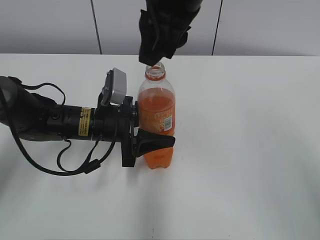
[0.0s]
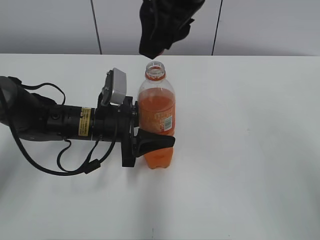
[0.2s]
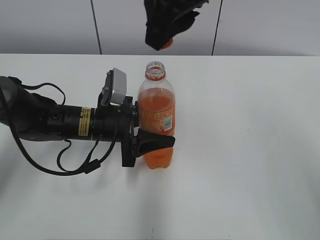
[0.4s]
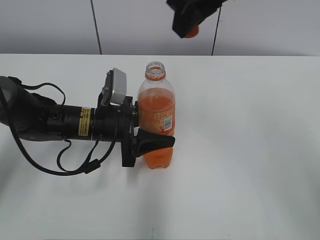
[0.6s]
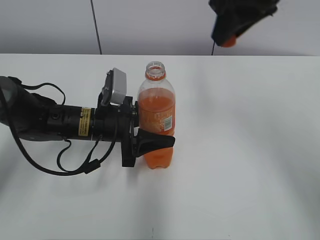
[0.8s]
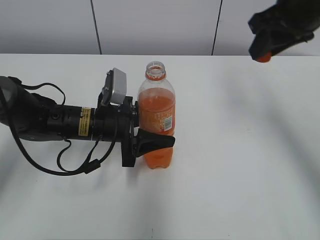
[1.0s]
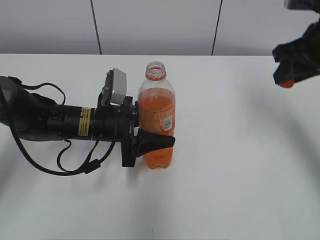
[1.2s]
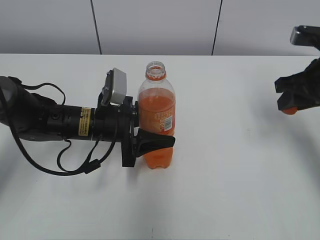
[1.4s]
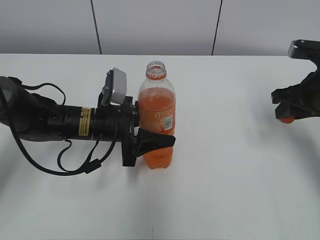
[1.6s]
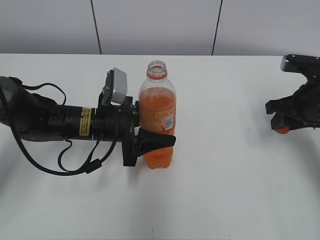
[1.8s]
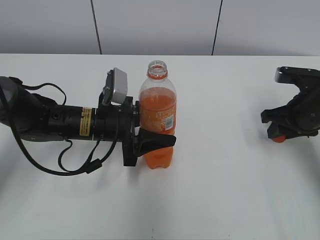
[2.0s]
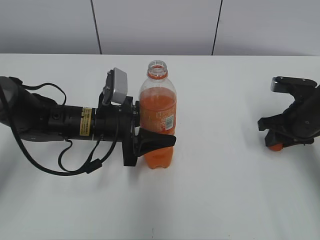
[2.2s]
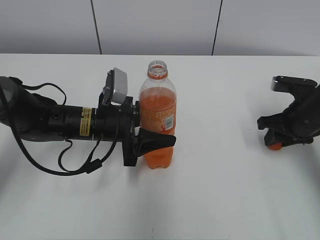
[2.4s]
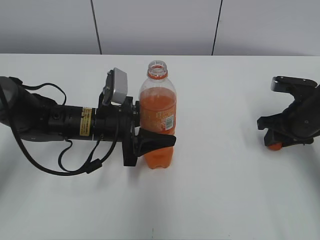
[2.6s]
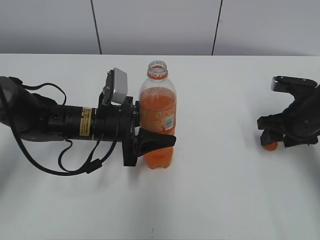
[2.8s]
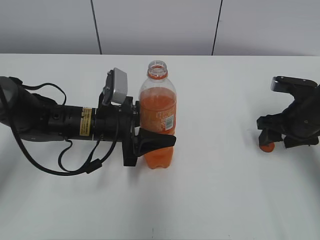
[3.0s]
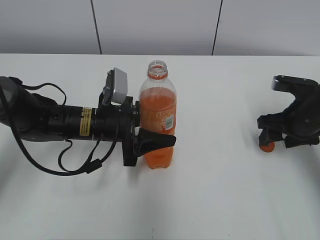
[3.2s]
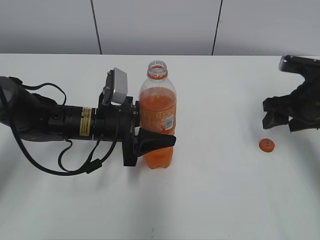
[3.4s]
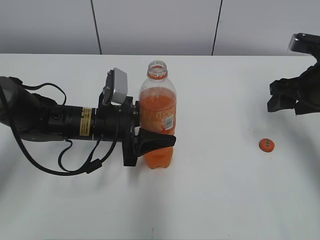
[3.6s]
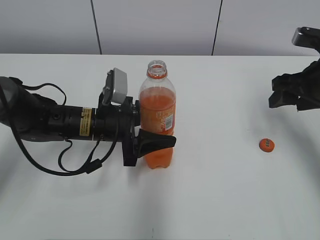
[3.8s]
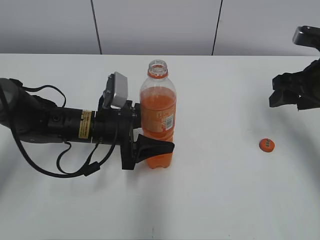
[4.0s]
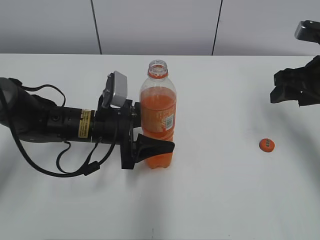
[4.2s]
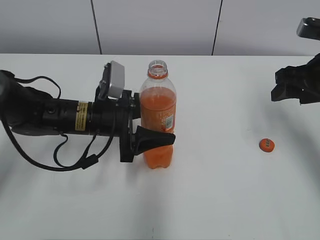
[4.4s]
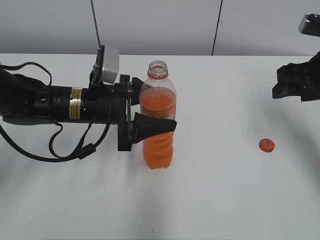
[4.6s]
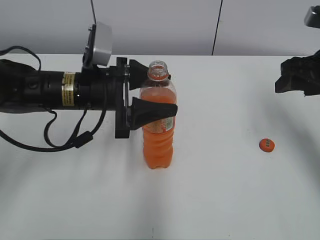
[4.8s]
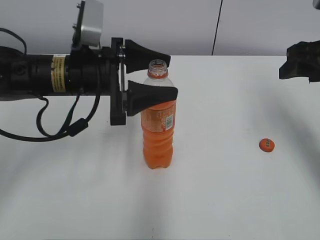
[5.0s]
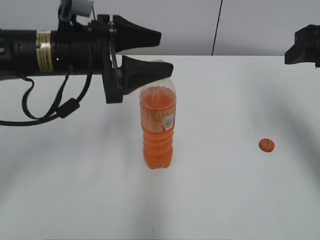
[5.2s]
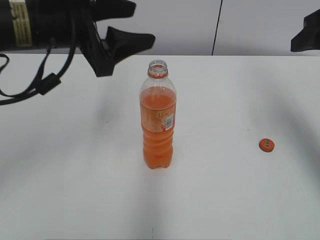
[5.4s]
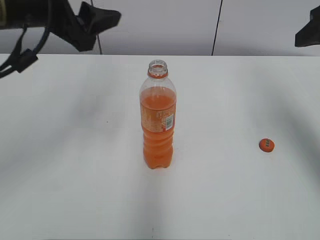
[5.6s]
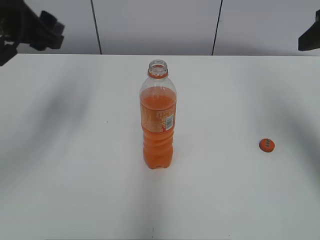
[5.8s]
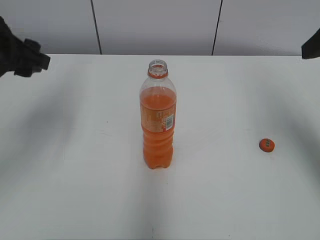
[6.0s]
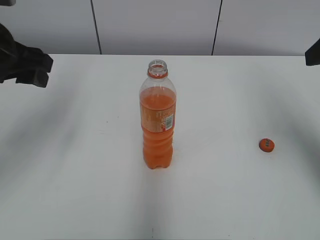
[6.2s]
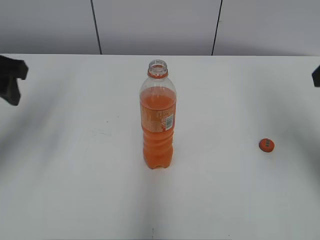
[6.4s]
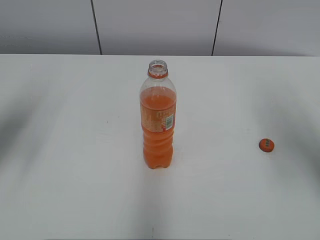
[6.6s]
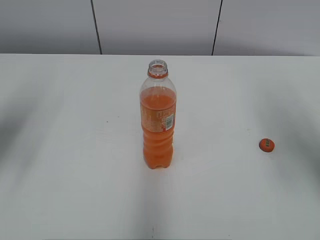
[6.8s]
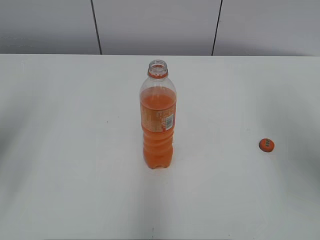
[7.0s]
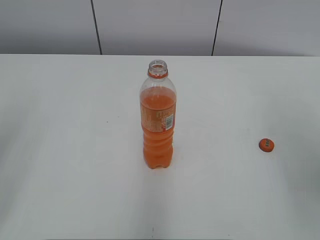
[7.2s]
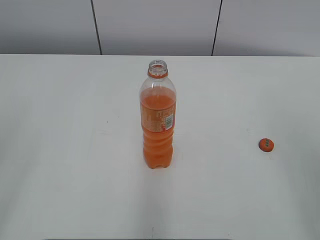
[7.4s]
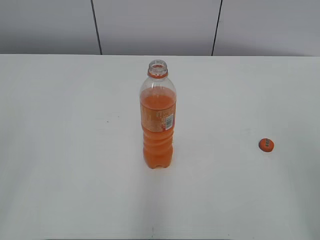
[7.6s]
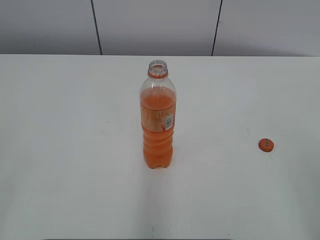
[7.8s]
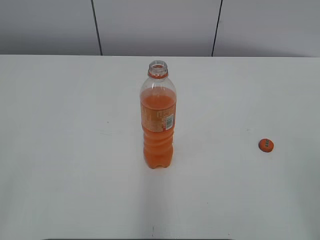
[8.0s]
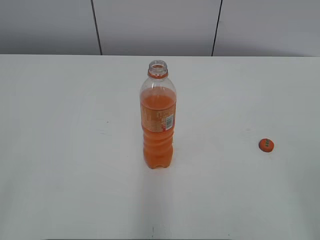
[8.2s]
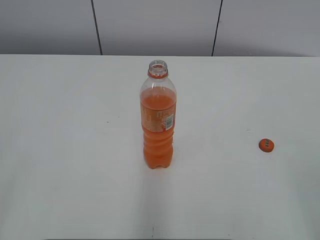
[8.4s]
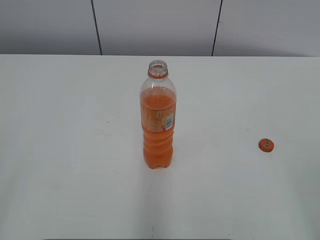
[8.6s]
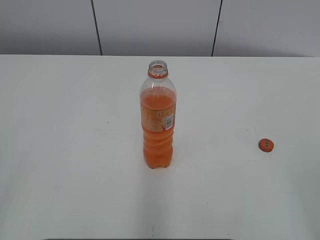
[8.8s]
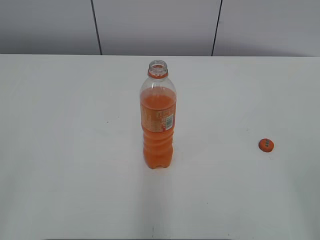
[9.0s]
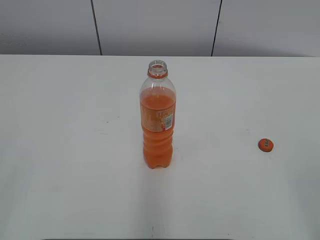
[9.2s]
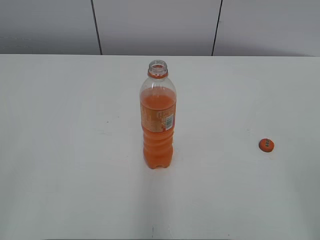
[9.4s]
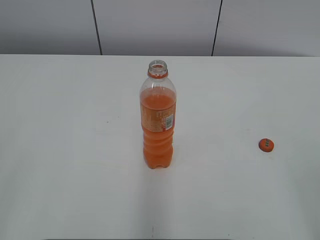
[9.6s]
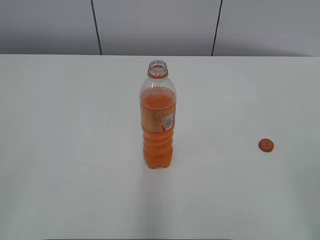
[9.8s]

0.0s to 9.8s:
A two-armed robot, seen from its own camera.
Step, 0.2s to 3.2s: Place the bottle cap on the right.
0.0s to 1.4s: The right gripper is displaced to the right and downward by approximately 30 cm.
1.4s to 2.8s: The right gripper is displaced downward by roughly 10 cm, and opens its fingers.
2.8s to 4.2s: The left gripper opens. Meanwhile the right gripper heads upward, covering roughly 10 cm.
4.2s to 5.6s: The left gripper goes some 20 cm upward; the right gripper goes some 10 cm upward.
5.6s to 7.0s: The left gripper travels to the left and backward by roughly 15 cm, while the right gripper travels backward by approximately 10 cm.
7.0s to 8.4s: The grippers both shift backward by roughly 20 cm.
8.4s to 9.8s: The two grippers keep their place.

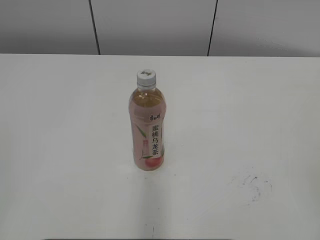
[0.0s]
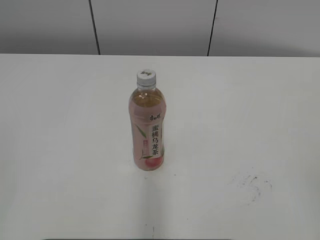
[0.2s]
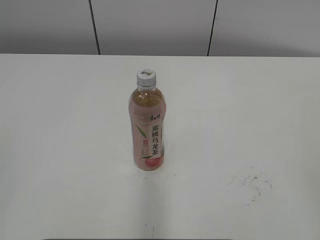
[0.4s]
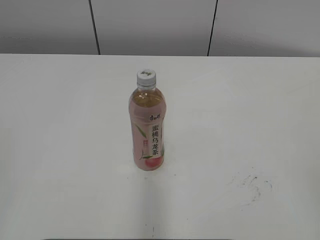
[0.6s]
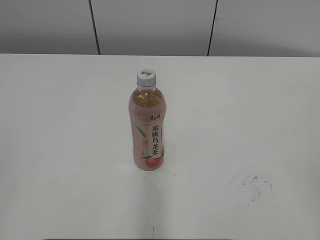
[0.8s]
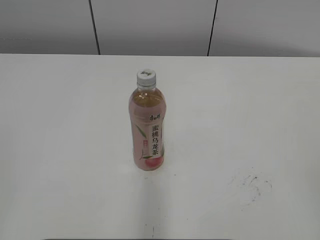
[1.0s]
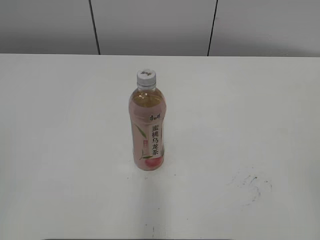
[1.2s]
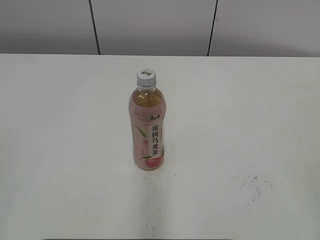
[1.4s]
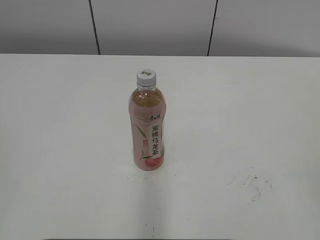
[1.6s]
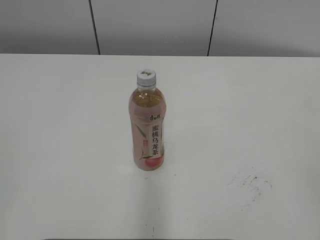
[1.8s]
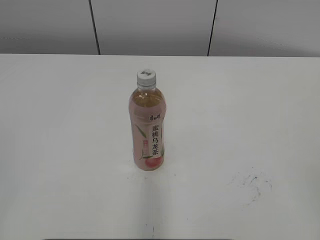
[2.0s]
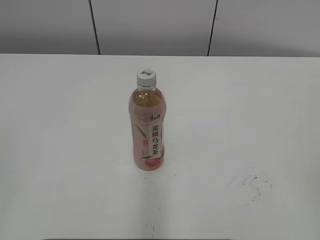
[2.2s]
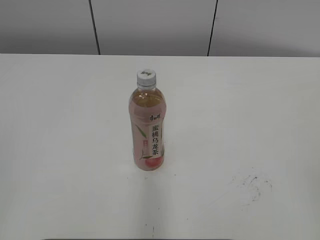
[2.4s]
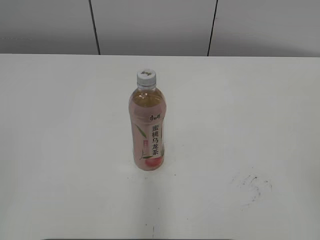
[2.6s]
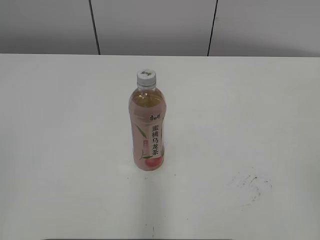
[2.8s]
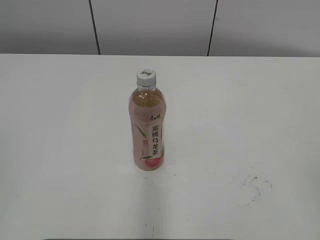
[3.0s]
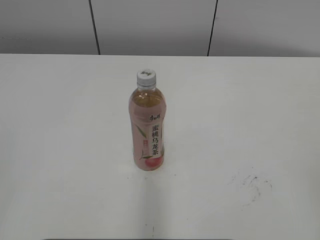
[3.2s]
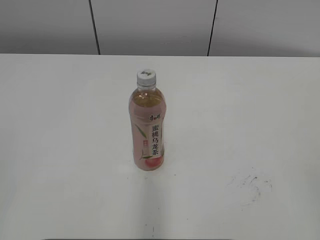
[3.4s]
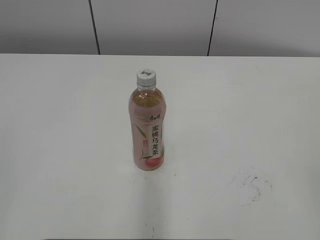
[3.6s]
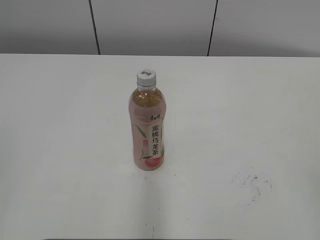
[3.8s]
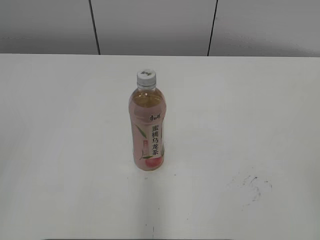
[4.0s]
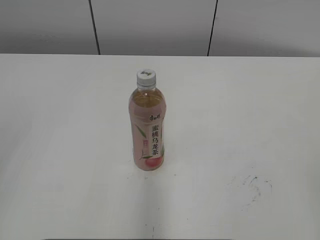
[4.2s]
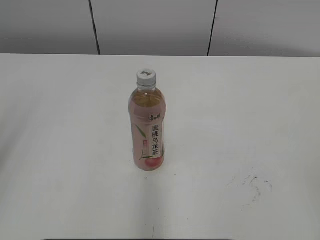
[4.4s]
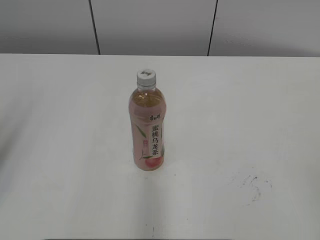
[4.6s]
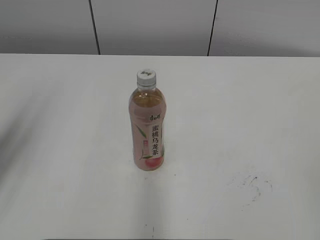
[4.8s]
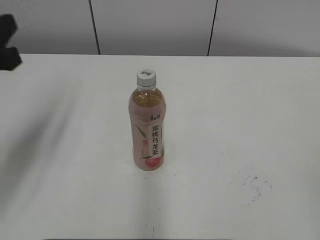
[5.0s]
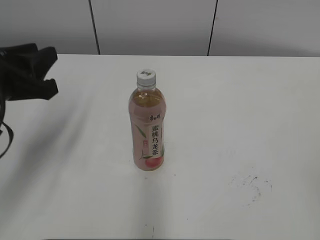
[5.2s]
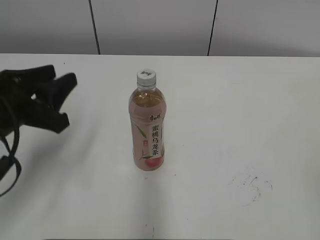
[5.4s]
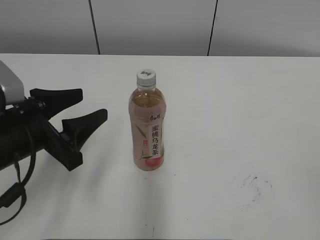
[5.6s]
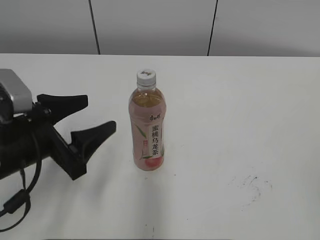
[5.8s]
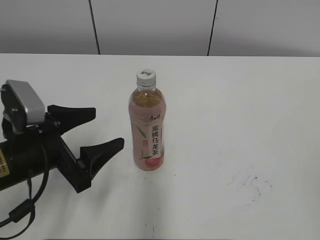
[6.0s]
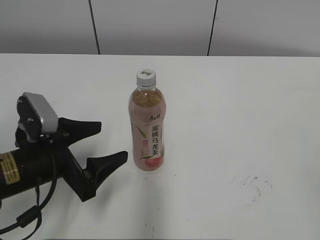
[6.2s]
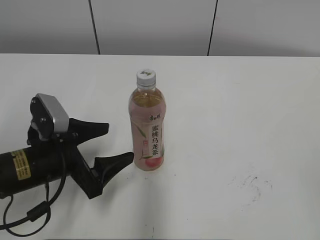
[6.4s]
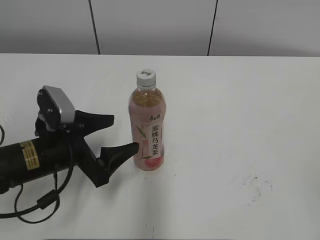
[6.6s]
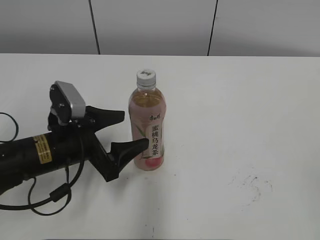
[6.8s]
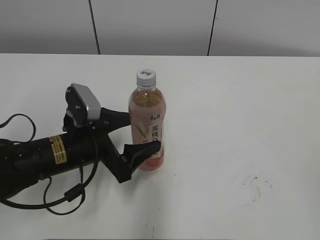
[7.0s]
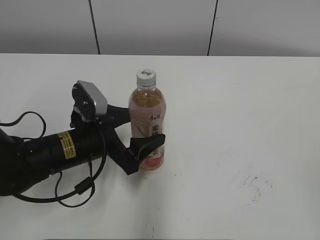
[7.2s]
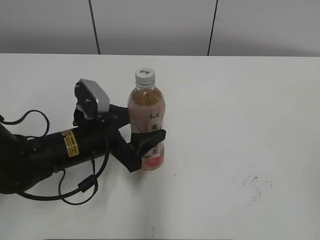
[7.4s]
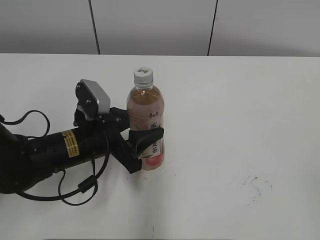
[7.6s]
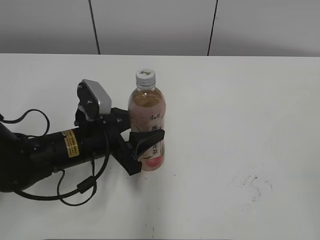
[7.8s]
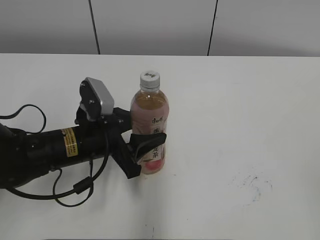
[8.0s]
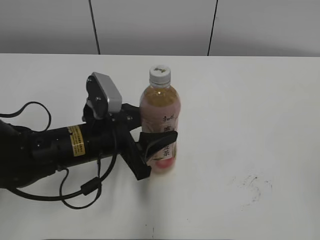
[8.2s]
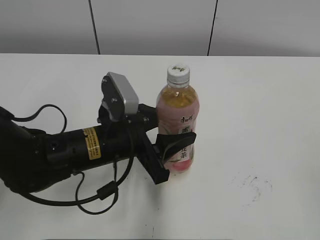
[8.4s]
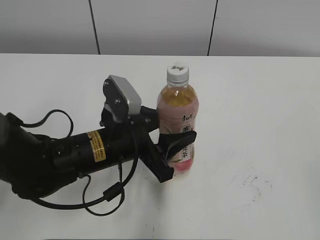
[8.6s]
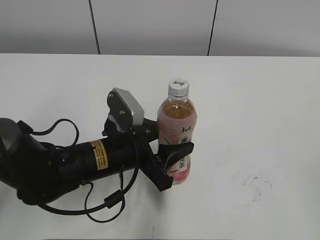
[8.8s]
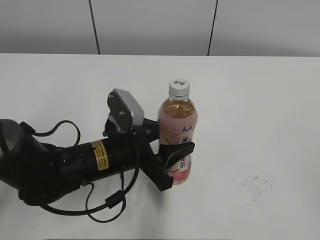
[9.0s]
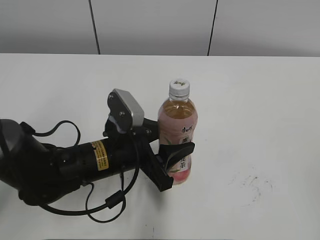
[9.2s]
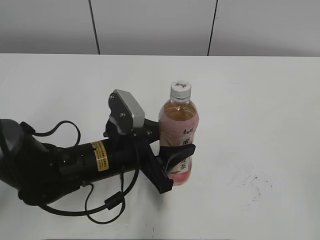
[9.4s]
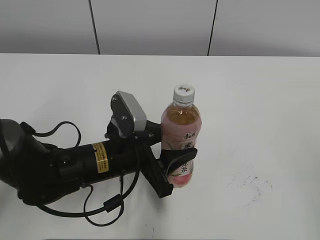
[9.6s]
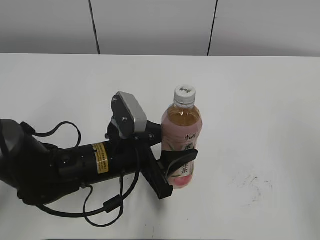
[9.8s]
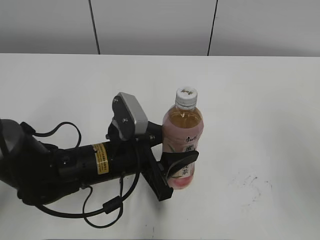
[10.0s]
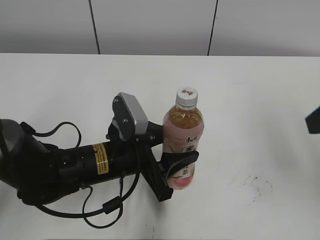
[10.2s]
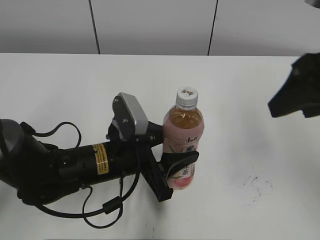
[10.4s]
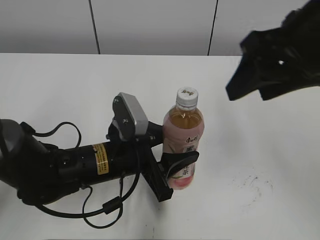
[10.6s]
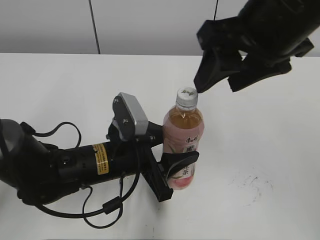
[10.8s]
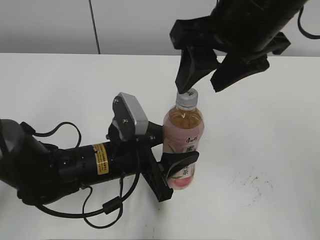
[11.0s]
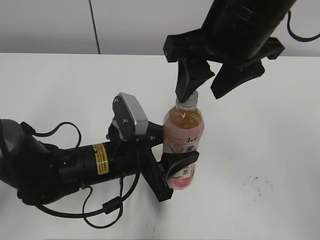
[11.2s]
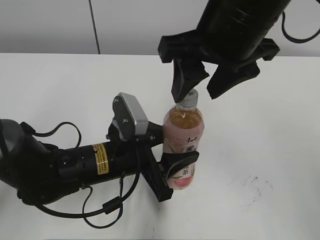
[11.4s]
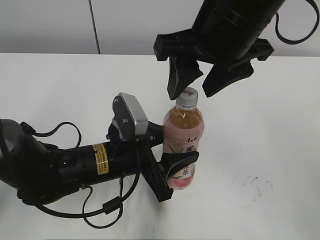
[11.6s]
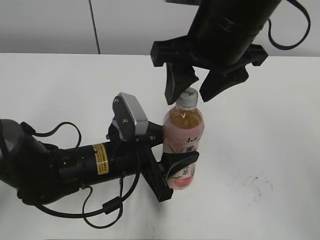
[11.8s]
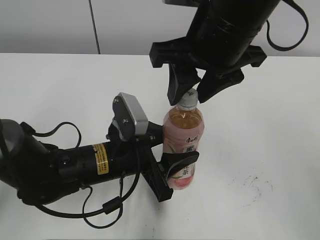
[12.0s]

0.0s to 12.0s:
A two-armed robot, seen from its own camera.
Step, 0.0s to 7.6s: Grab the Peach Oolong Tea with the left hand.
Step, 8.0s to 9.2s: Lift the Peach Oolong Tea with the left hand.
1.6s to 3.0s: Both grippers stay about where they are.
4.4s to 6.0s: The left gripper moves downward, forward and to the right, roughly 25 cm, and opens its fingers.
6.0s to 7.6s: The left gripper heads to the right and forward, covering some 10 cm, and closes.
7.6s to 9.0s: The left gripper changes place by approximately 5 cm.
9.0s to 10.4s: The right gripper heads forward and to the left, covering about 25 cm.
10.4s to 12.0s: The right gripper moves to the left, some 15 cm.
